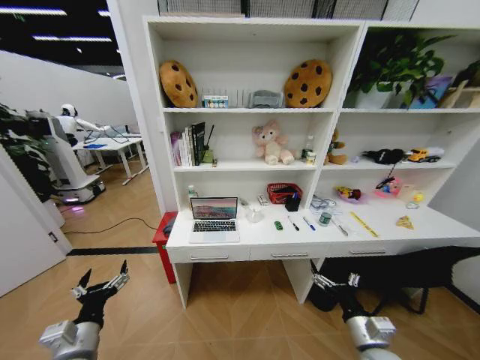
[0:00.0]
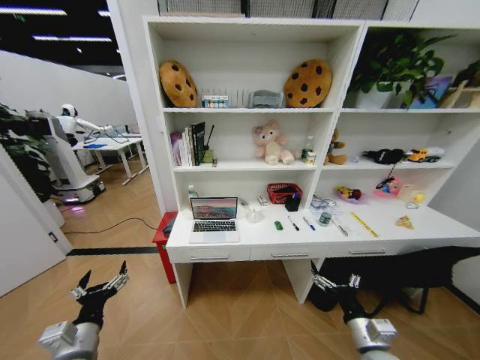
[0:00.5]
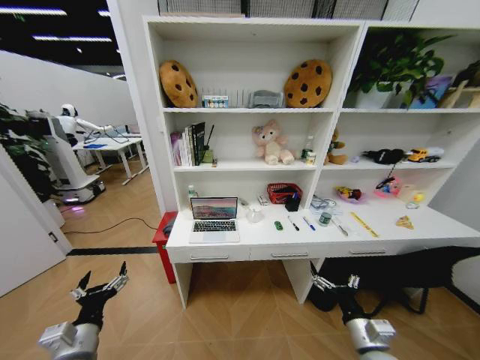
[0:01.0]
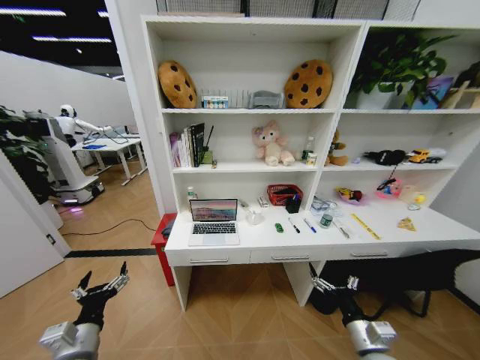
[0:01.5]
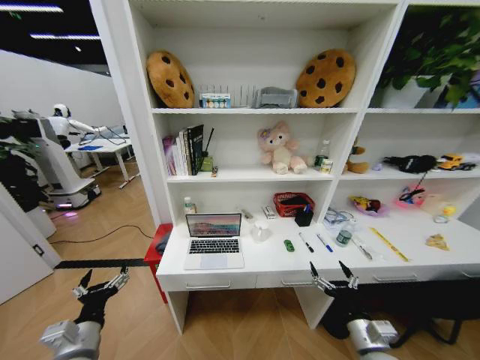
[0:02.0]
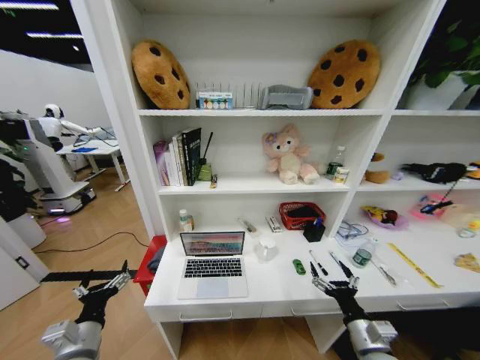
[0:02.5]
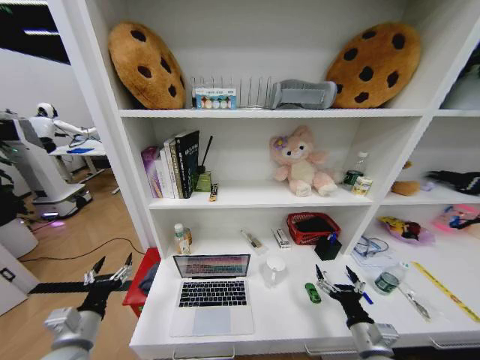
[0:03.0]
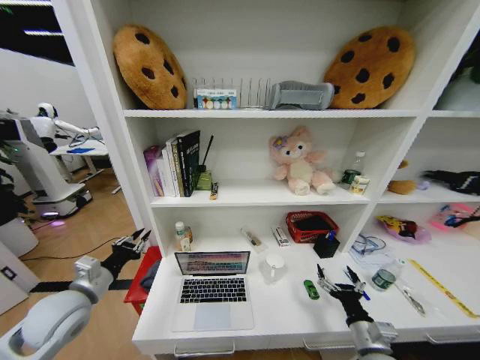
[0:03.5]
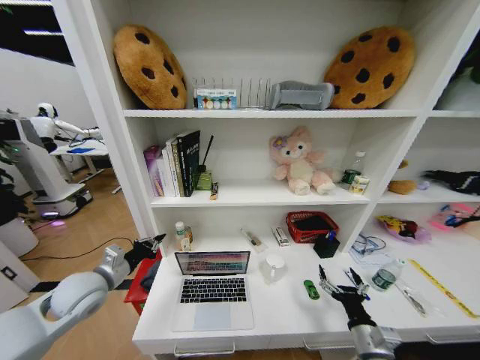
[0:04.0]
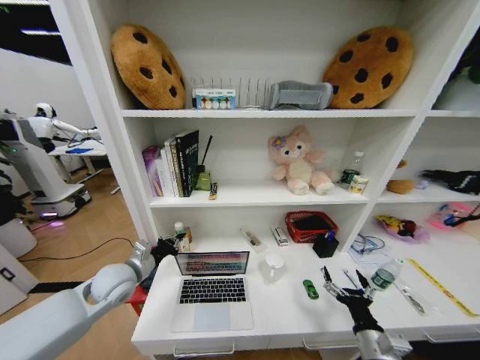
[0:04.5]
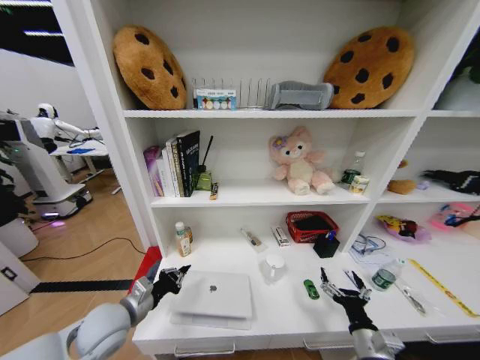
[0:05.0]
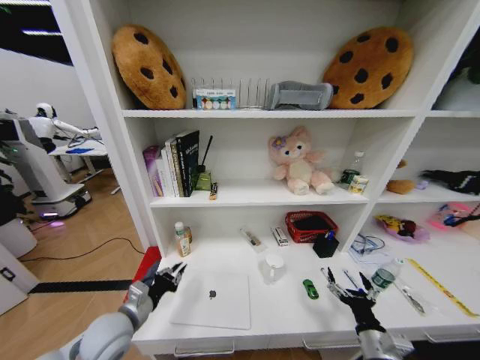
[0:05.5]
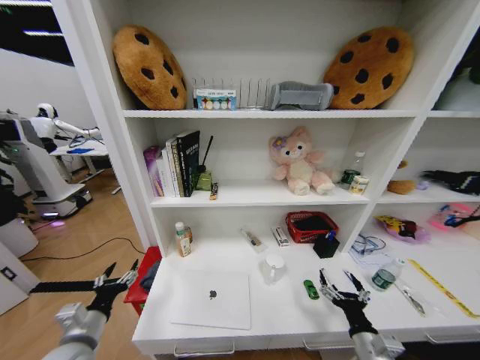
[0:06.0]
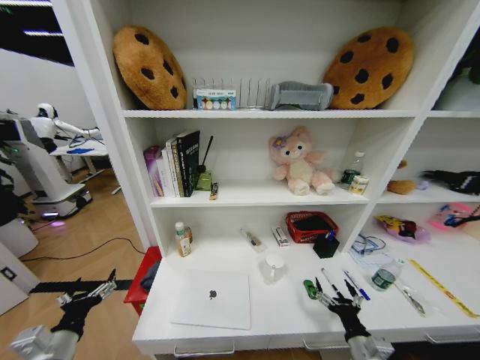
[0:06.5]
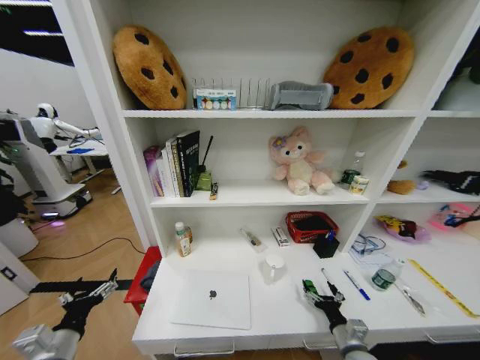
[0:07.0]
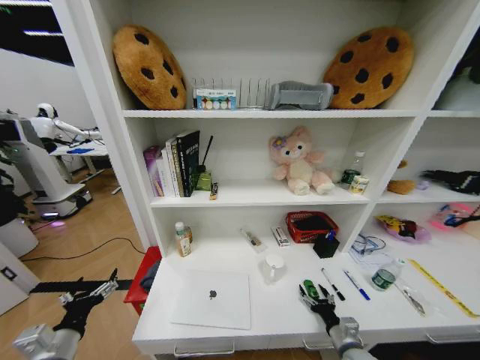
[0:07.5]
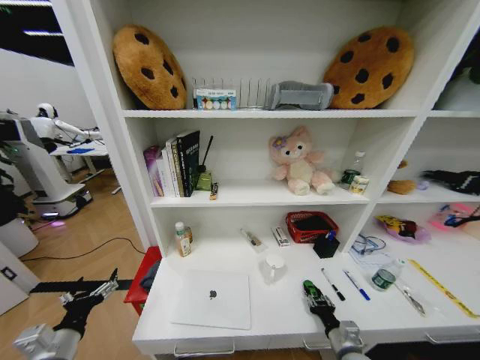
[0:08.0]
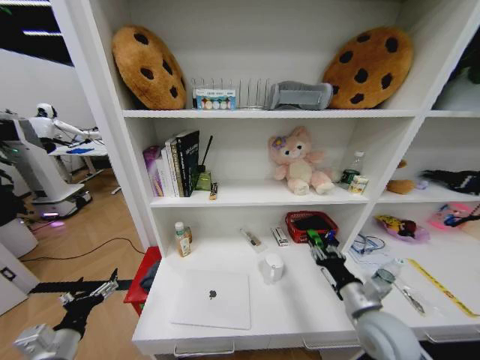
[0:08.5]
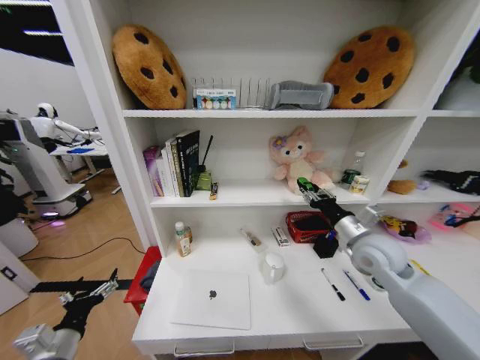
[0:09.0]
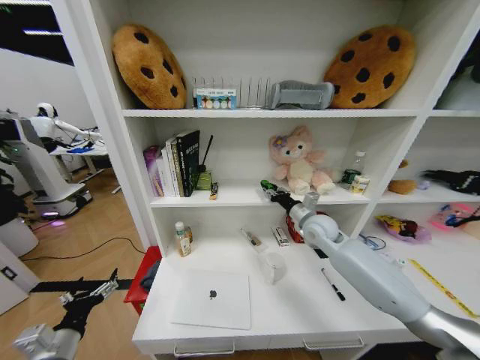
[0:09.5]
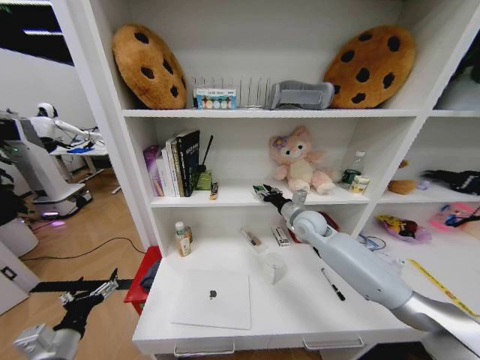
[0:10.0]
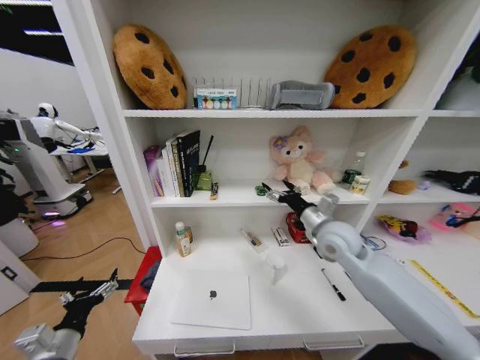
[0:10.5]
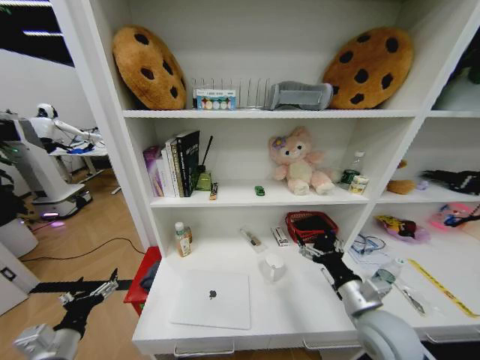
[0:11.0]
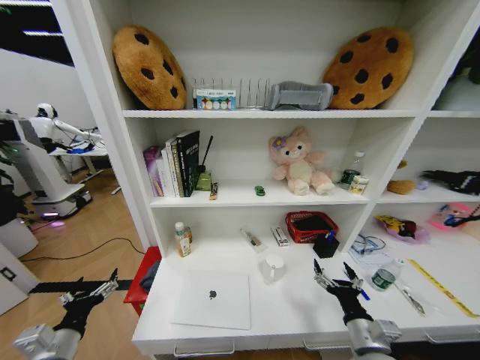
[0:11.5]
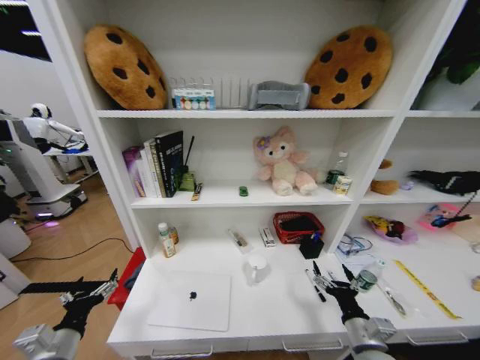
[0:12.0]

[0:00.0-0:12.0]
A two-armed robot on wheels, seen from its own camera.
Task of the whole recording: Organize the objects on the table.
2.0 to 4.0 s: The left gripper travels forward and upward by roughly 15 cm, and closes its fingers.
4.0 to 6.0 s: The left gripper heads backward and downward, covering about 15 cm, and opens.
6.0 to 8.0 s: The right gripper goes some 10 cm downward, and closes up.
8.0 to 10.0 s: The right gripper moves forward and upward, roughly 40 cm.
10.0 to 12.0 s: The right gripper travels backward and downward by about 35 cm, and opens its fingers.

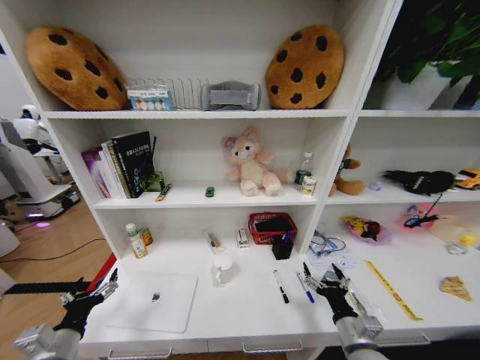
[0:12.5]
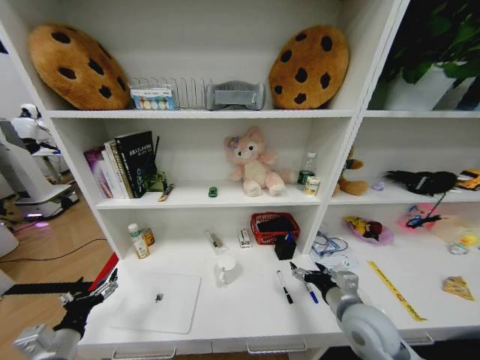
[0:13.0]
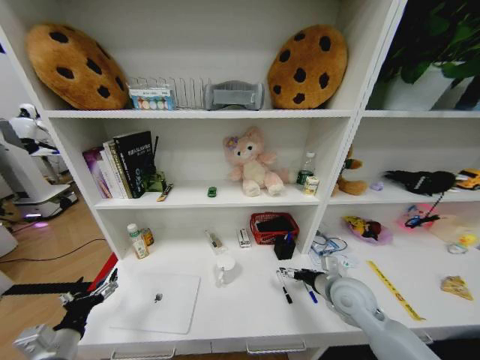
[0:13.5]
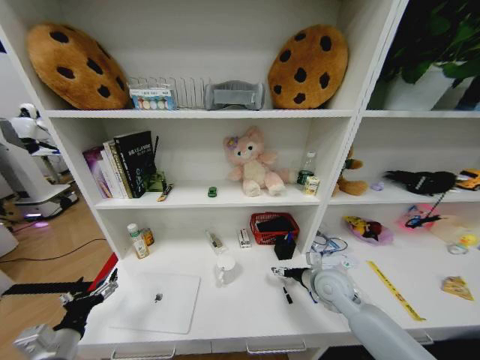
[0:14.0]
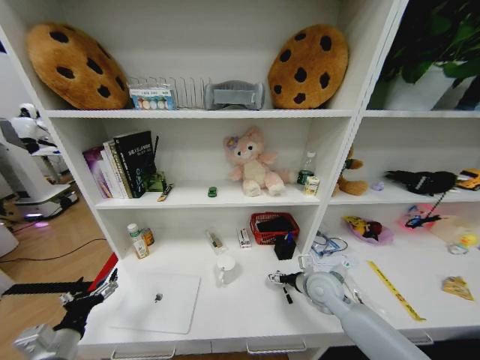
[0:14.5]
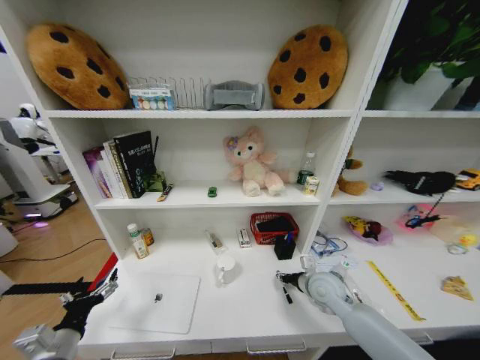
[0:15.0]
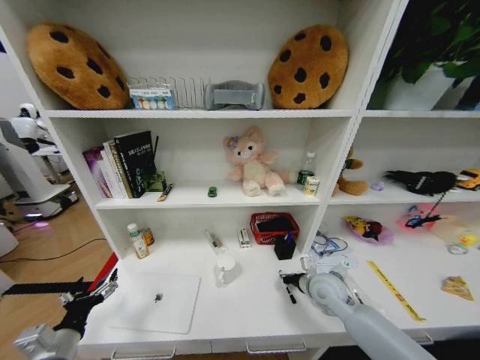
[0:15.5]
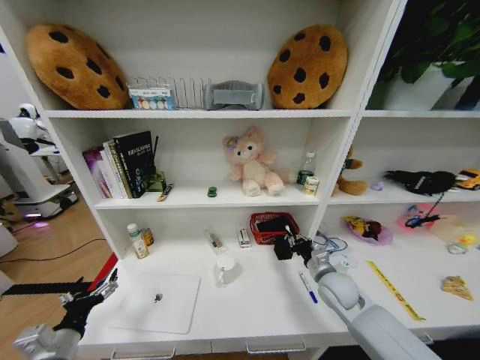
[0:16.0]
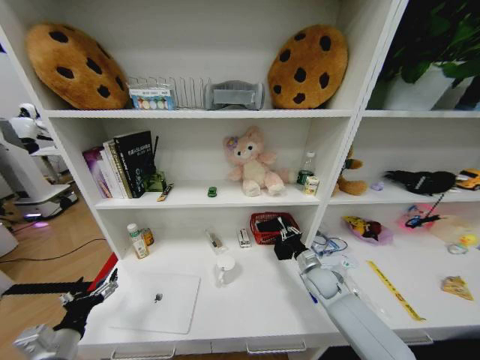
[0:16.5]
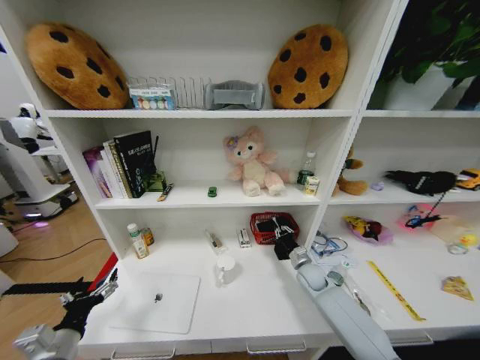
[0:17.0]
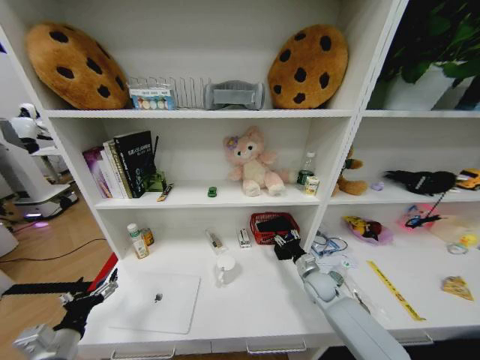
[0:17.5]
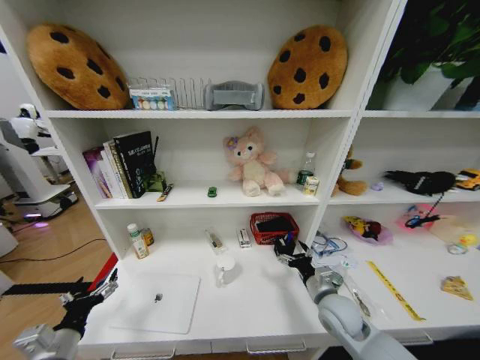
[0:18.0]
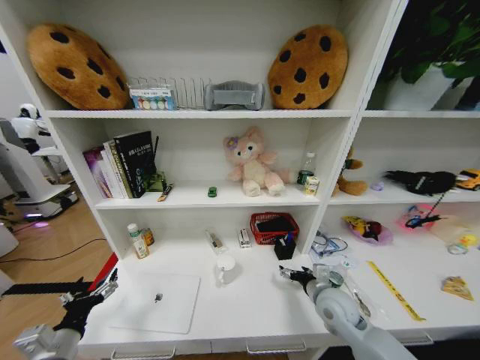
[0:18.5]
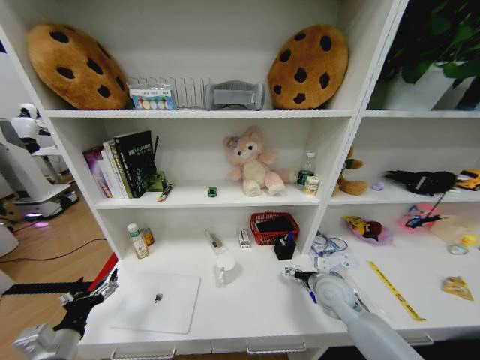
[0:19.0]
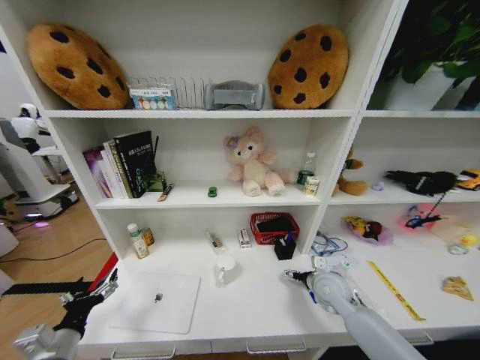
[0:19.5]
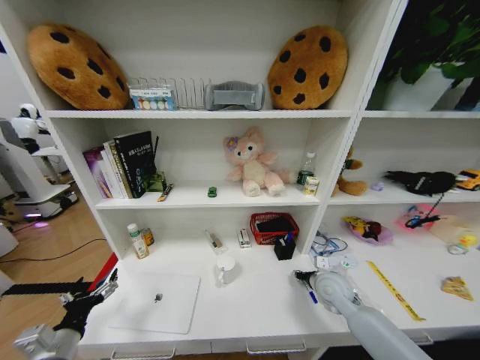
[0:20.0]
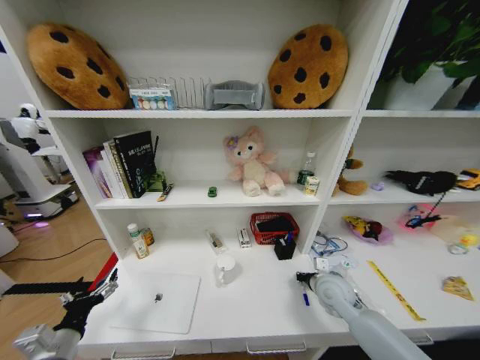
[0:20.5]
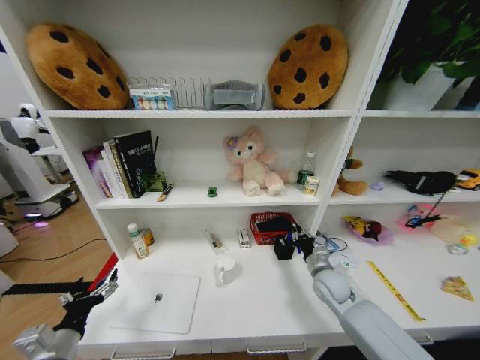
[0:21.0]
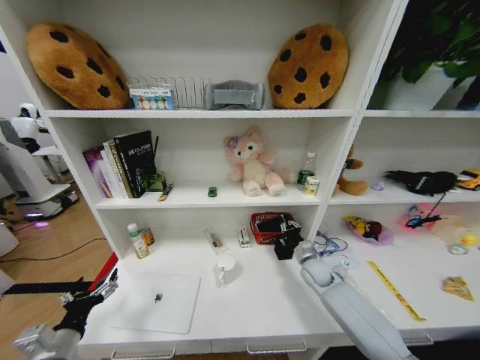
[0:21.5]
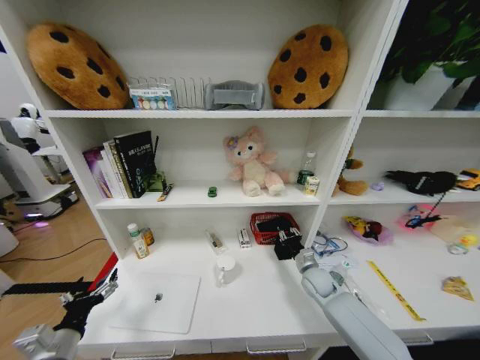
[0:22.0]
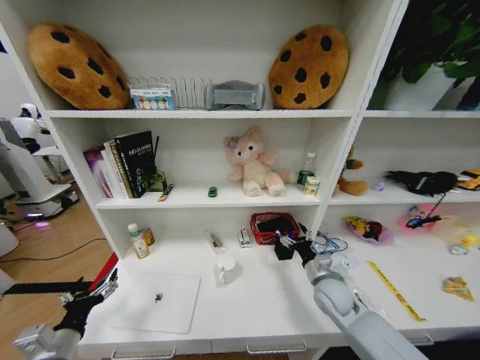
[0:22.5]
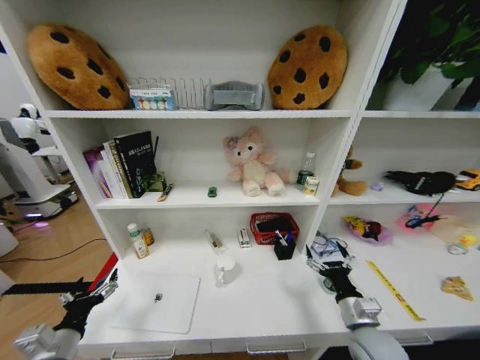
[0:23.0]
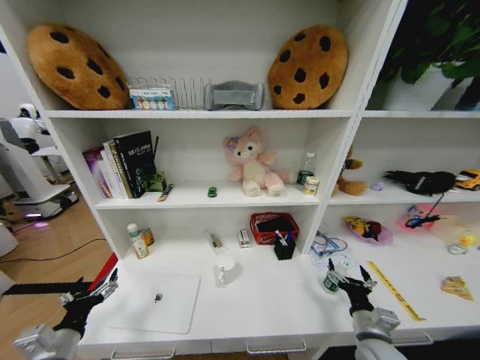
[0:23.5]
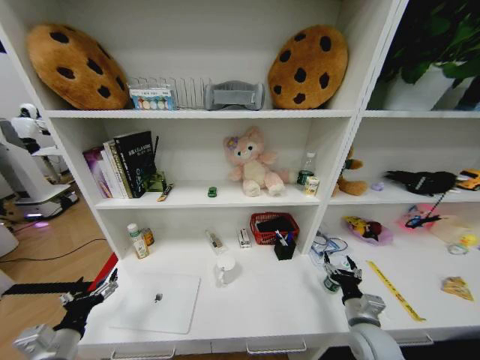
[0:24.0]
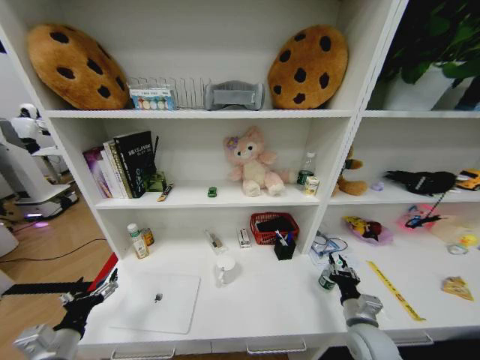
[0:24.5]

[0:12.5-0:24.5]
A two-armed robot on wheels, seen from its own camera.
Task of the whole recording: Organize the objects on the table.
12.5 to 14.5 s: The right gripper goes about 15 cm forward.
14.5 to 16.5 s: The right gripper goes approximately 5 cm downward, and closes.
16.5 to 18.5 s: The right gripper shifts some 10 cm backward and upward, and opens up.
18.5 to 20.5 s: The right gripper closes.
20.5 to 22.5 s: The right gripper reaches about 10 cm forward, then returns, and opens.
22.5 to 24.5 s: The right gripper is displaced backward and to the right by about 10 cm, and closes its fingers.

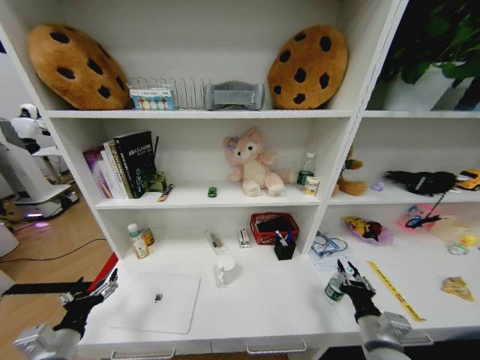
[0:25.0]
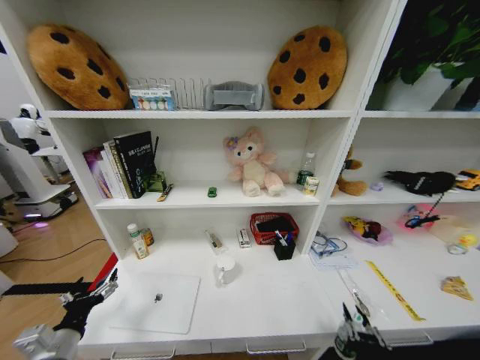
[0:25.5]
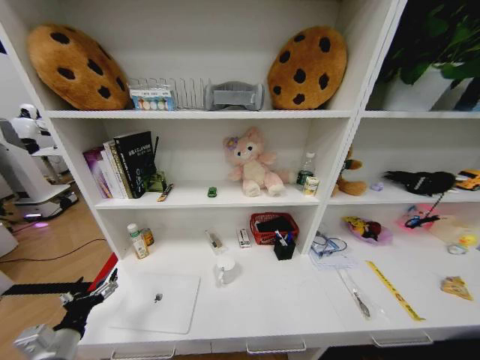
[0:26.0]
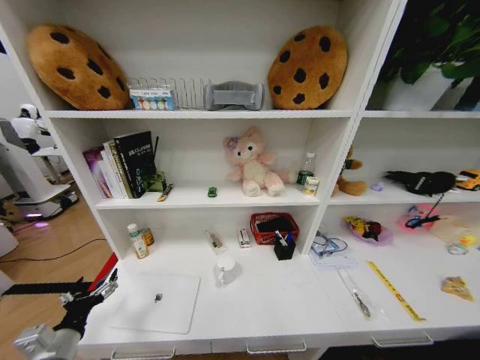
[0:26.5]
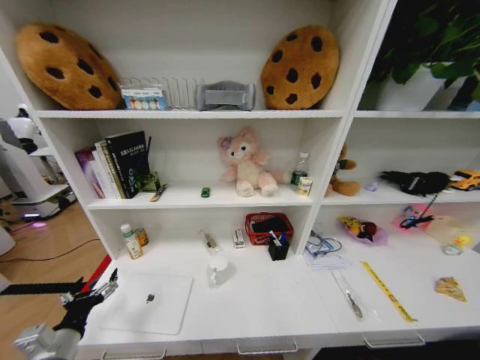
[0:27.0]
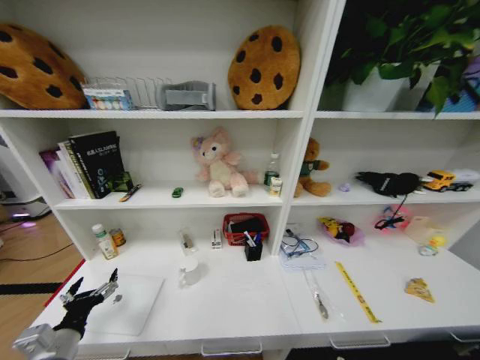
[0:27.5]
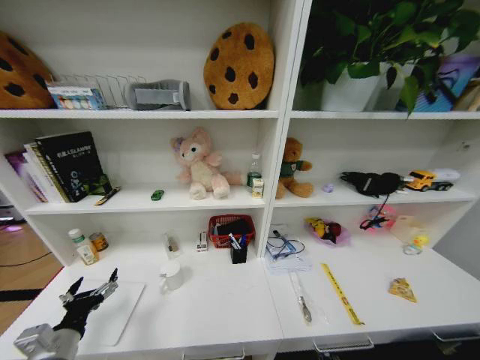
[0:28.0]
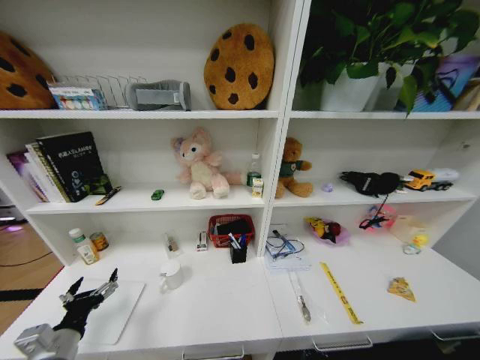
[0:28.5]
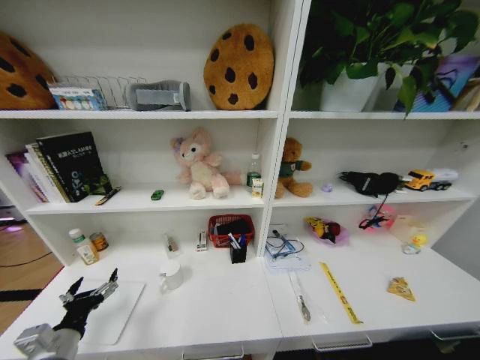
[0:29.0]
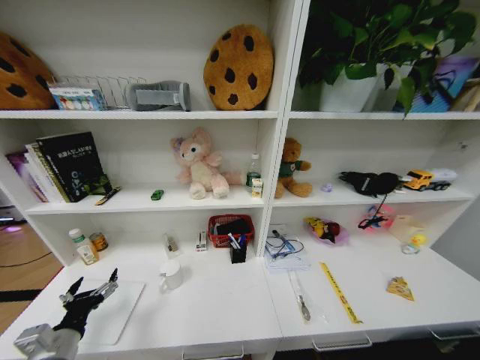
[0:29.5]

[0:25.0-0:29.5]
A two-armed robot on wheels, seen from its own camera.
Task of the whole recording: Organize the objects on the table.
25.0 to 27.0 s: The right gripper heads downward and backward, covering some 35 cm.
27.0 to 29.5 s: The right gripper travels upward and backward by roughly 20 cm, and opens up.
